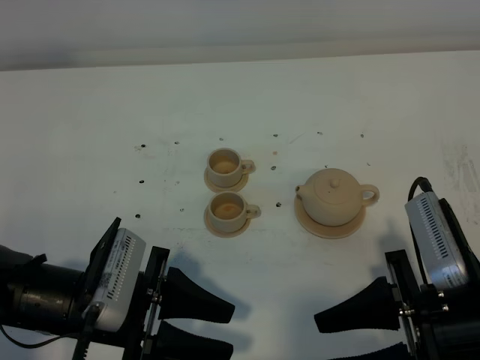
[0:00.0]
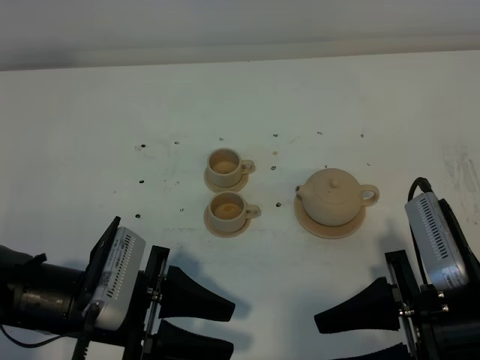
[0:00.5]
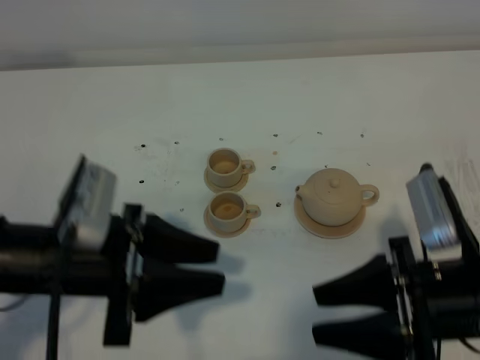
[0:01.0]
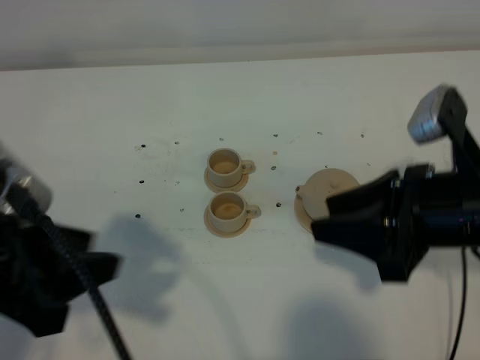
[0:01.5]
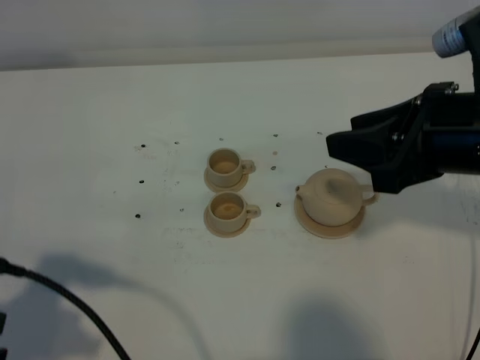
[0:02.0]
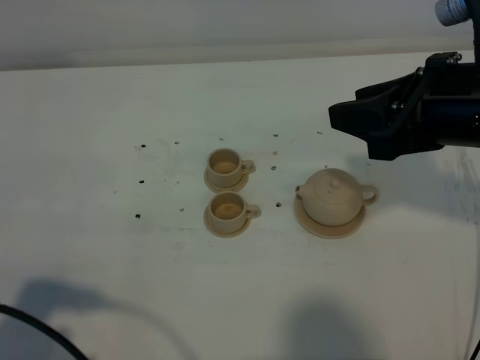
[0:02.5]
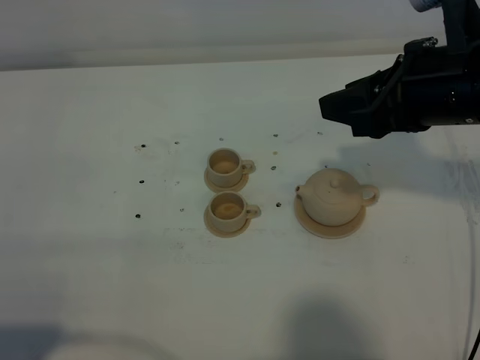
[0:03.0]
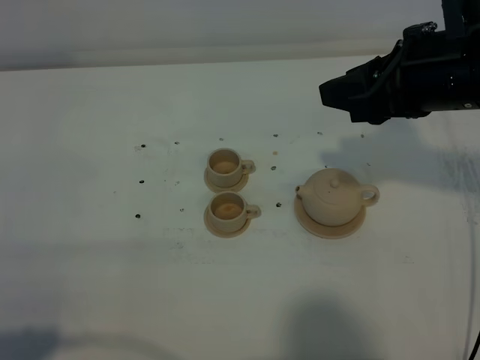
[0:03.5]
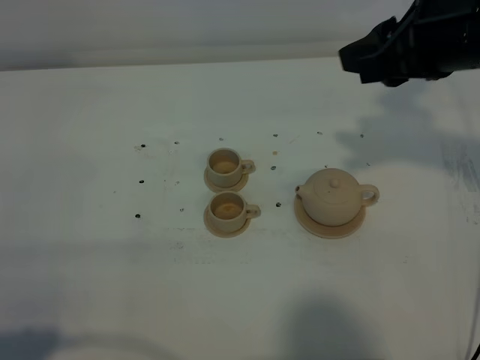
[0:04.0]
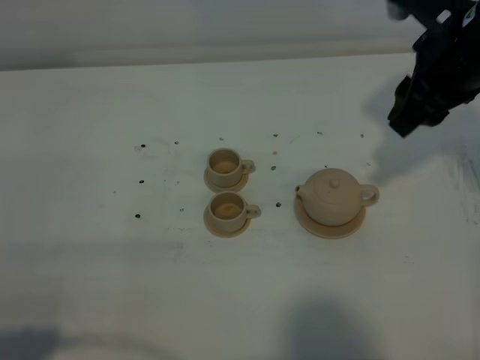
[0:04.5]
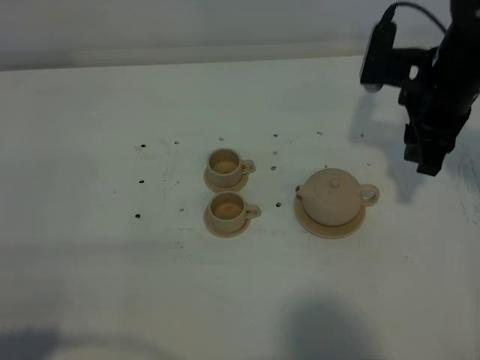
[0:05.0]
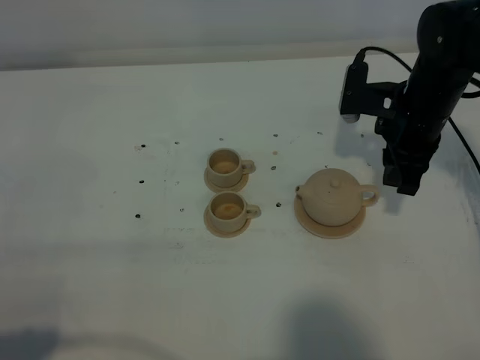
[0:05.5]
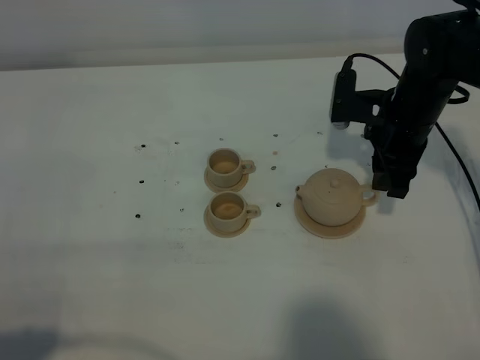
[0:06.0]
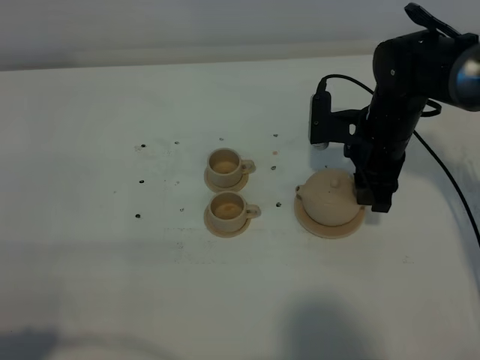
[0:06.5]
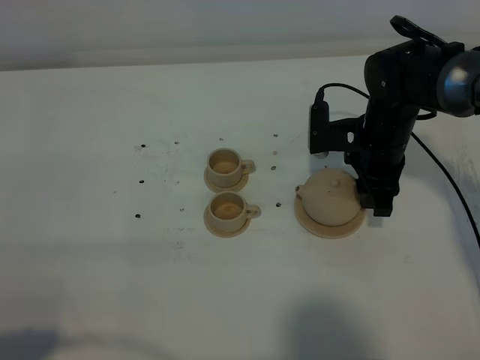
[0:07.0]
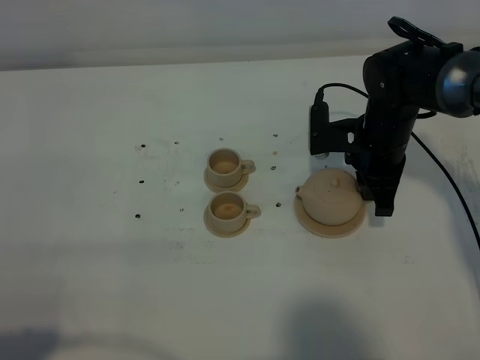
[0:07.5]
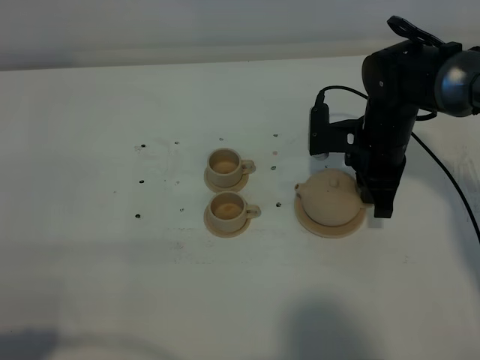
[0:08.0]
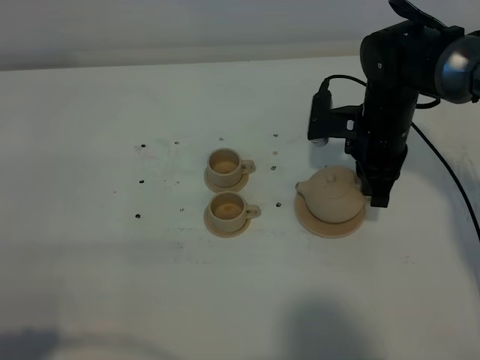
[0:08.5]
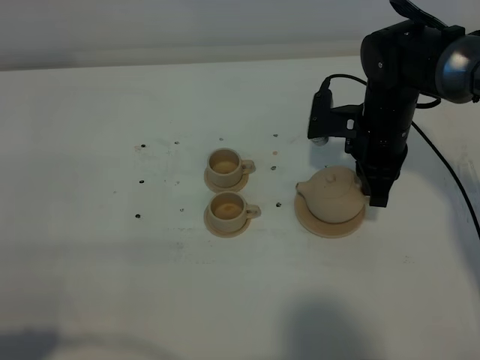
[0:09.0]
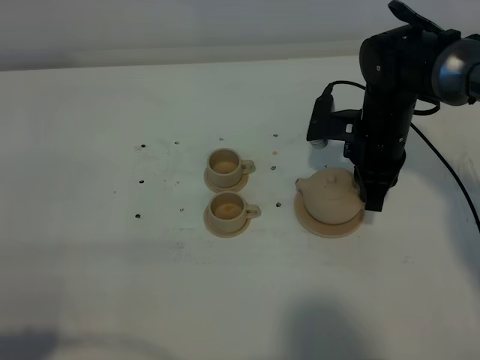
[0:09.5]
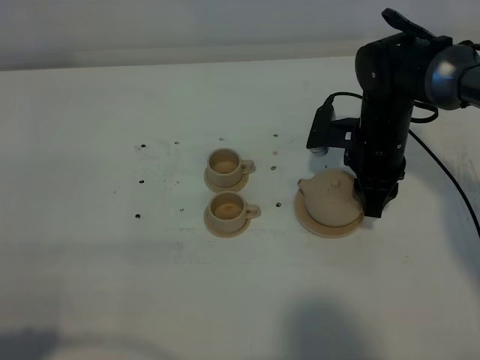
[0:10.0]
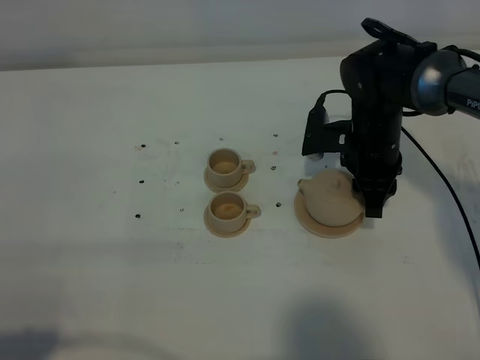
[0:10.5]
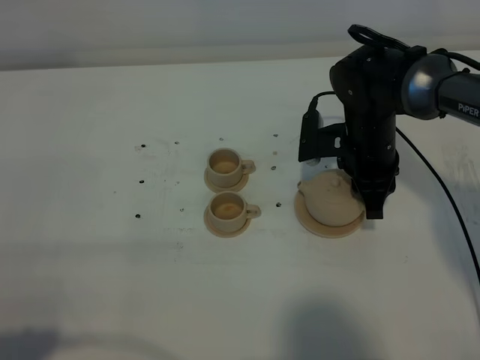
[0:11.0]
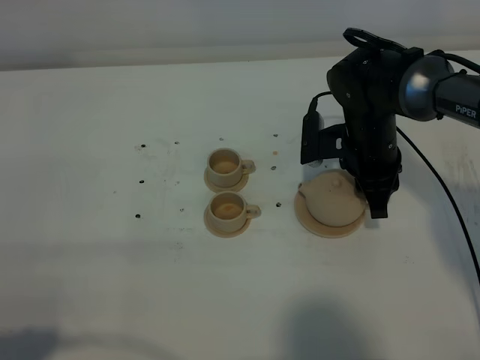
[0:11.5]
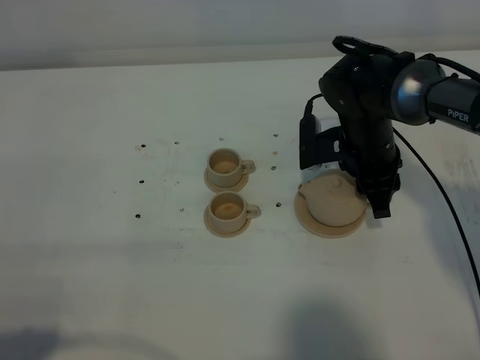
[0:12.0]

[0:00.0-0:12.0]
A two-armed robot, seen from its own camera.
Task of the whole recording: grasp the brown teapot and pour the tea into the two brown teacups one by one, put the brown teapot back in its original place.
0.0 to 2.0 s: The right gripper travels upward and forward by some 15 cm. Meanwhile the left gripper heads to the left, upward and backward, covering approximately 15 cm.
2.0 to 4.0 s: The right gripper moves forward, approximately 5 cm. The left gripper moves backward, about 10 cm.
4.0 to 6.0 s: The right gripper goes approximately 20 cm downward and forward.
6.0 to 8.0 s: The right gripper closes its fingers.
8.0 to 10.0 s: The right gripper opens up.

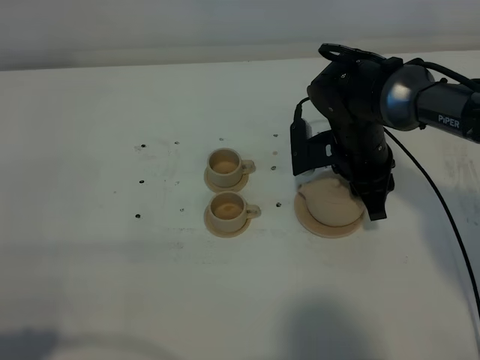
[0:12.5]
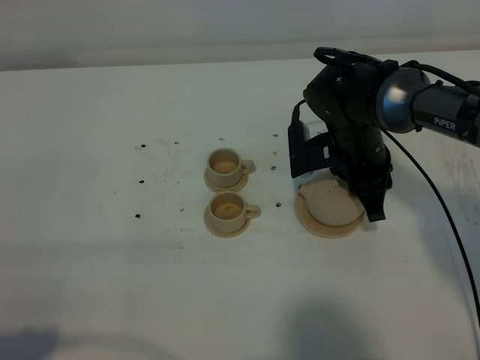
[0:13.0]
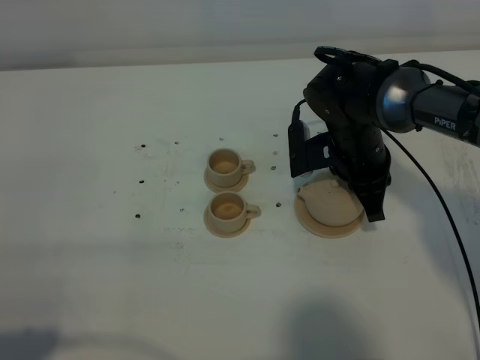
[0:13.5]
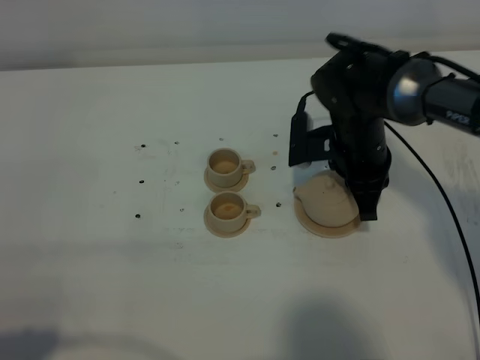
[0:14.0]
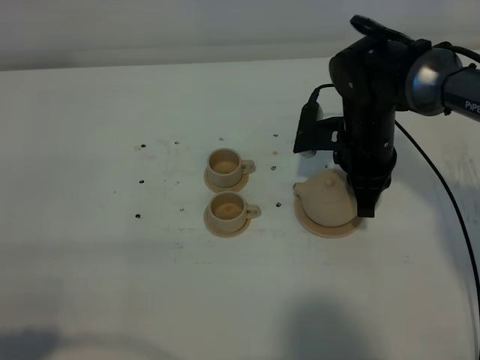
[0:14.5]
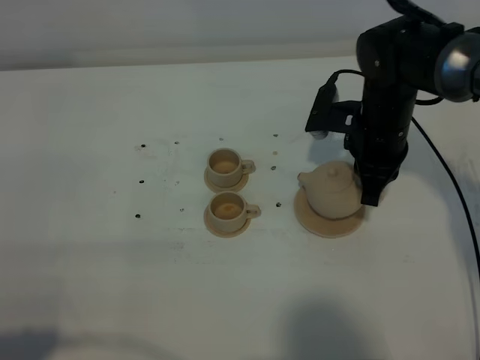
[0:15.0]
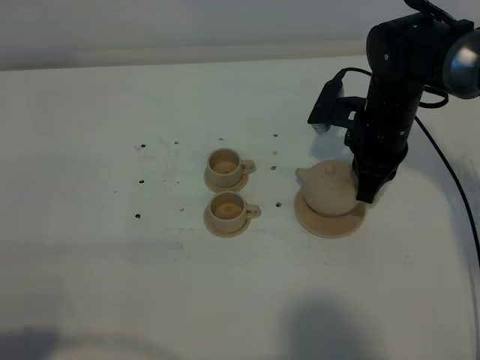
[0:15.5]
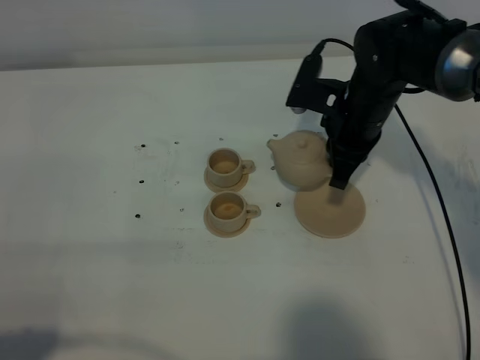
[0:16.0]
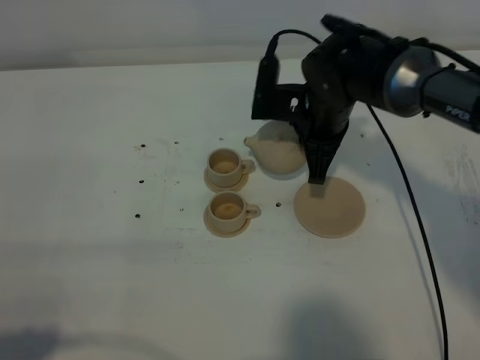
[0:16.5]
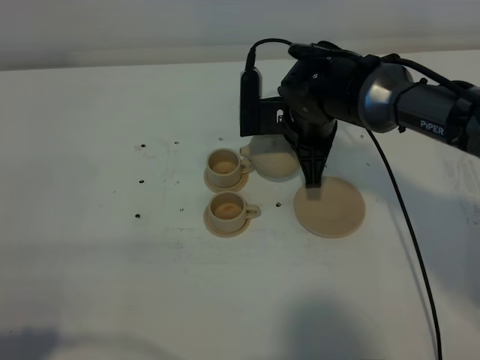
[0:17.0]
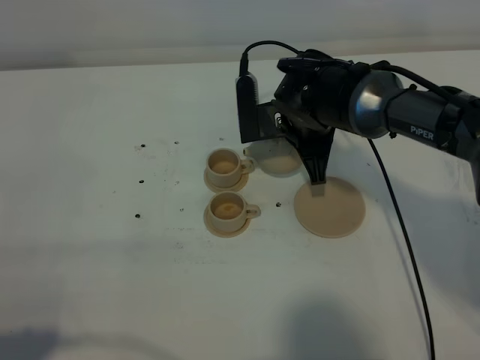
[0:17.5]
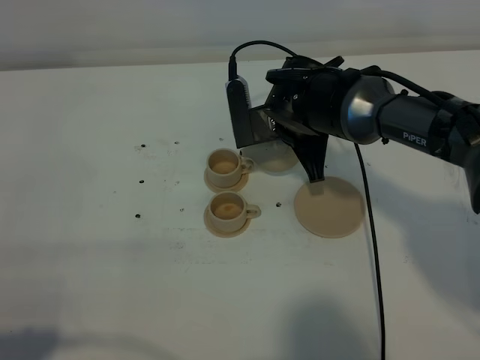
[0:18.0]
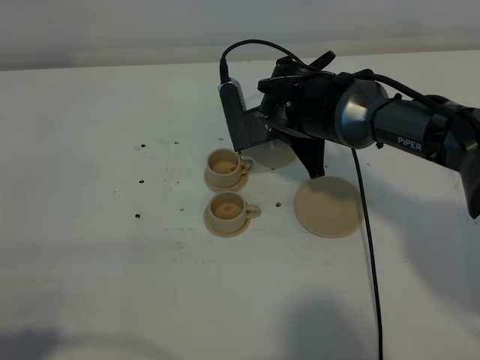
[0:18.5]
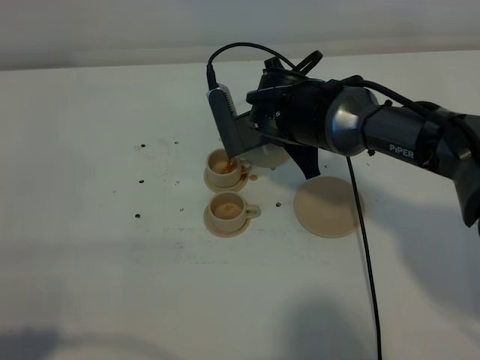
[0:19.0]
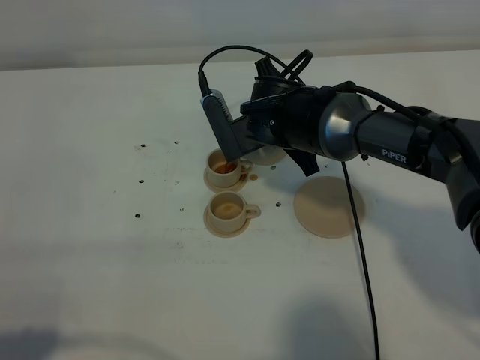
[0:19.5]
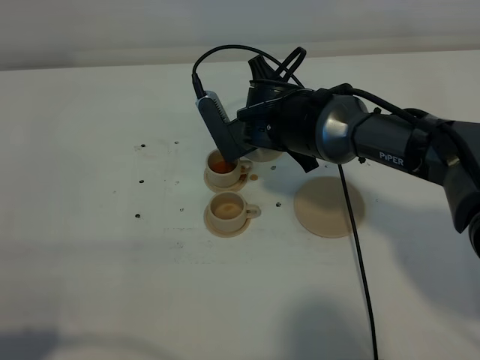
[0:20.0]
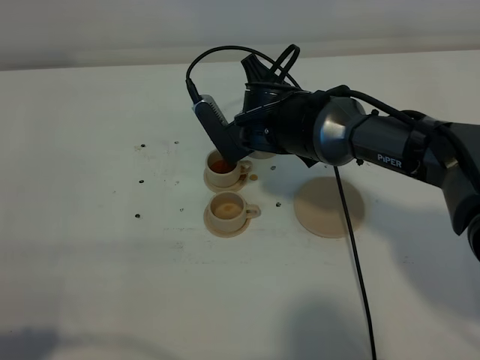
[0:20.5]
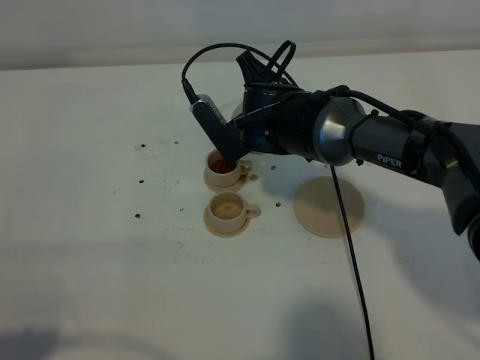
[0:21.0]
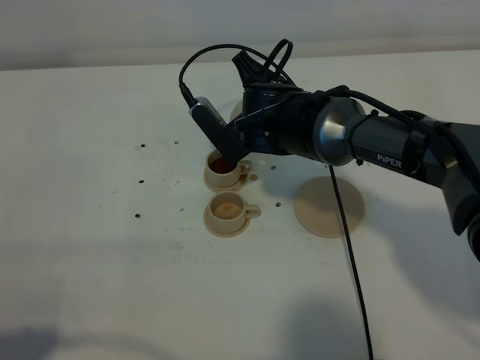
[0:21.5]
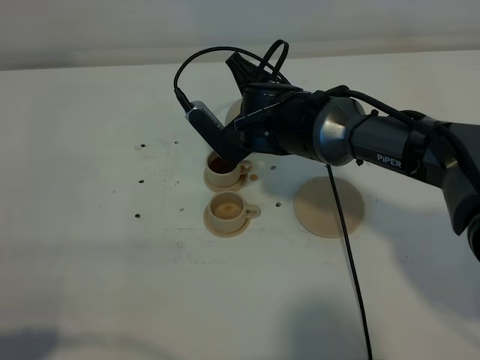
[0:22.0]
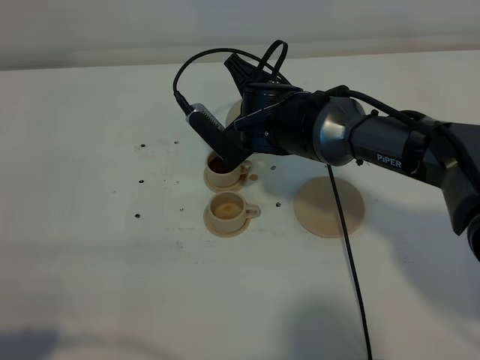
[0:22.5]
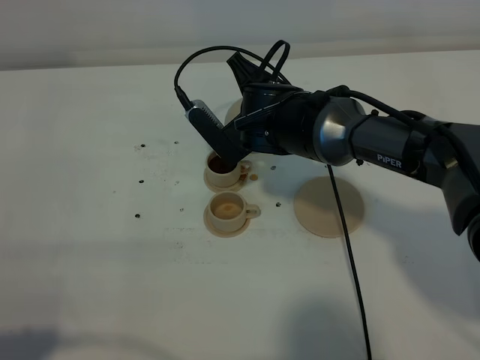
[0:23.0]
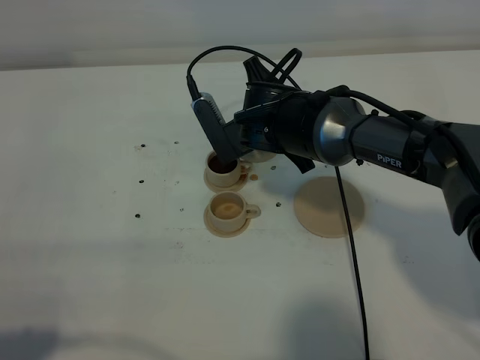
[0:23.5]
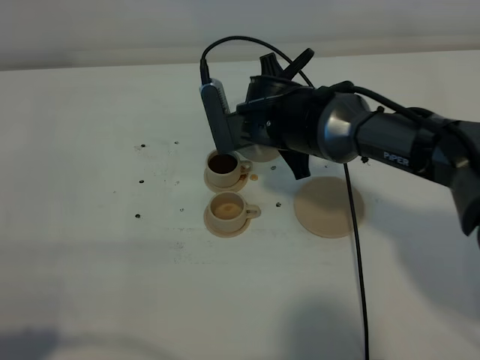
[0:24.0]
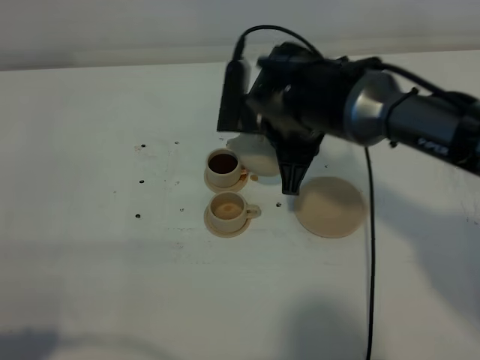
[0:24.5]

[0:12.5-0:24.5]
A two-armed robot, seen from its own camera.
Task of the whole recording: grasp the brown teapot and pour the tea into the two brown teacups one by one, put the brown teapot back in its original place.
Step, 12.5 to 15.5 s: Pick up the teapot with the right gripper.
12.5 to 14.5 s: The right gripper closes up.
14.5 to 16.5 s: The right gripper ends up roughly 5 cm from where it was.
18.5 to 20.5 s: The grippers stay close to where they were, moving slightly.
20.5 to 22.5 s: There are only small adjustments of the grippers.
22.5 to 24.5 s: The right gripper ends up some 5 cm from where it was.

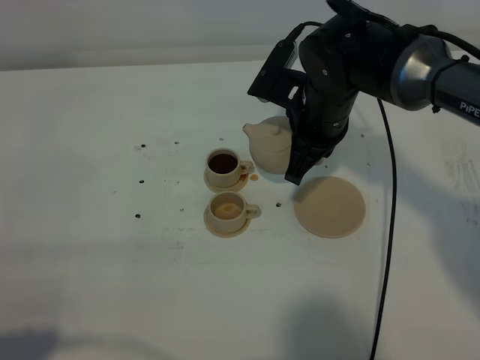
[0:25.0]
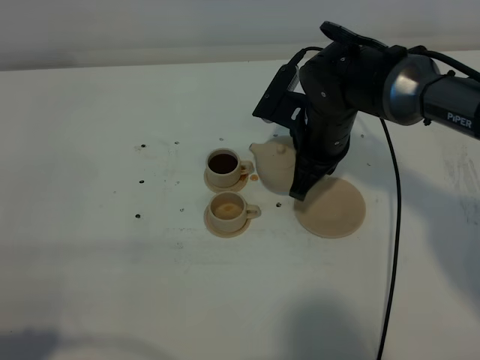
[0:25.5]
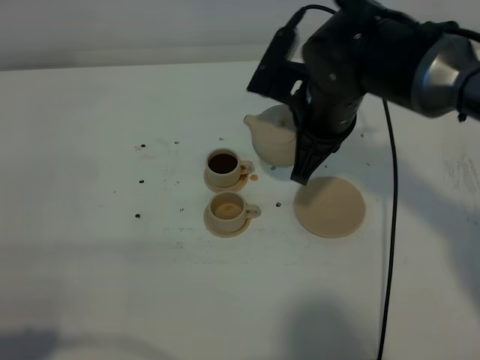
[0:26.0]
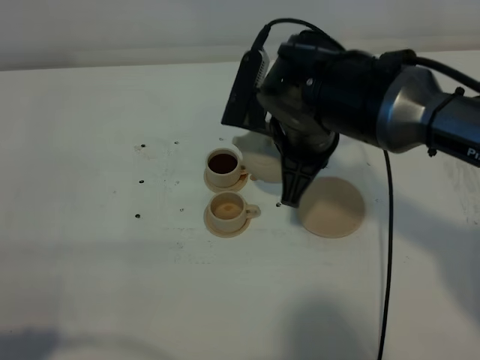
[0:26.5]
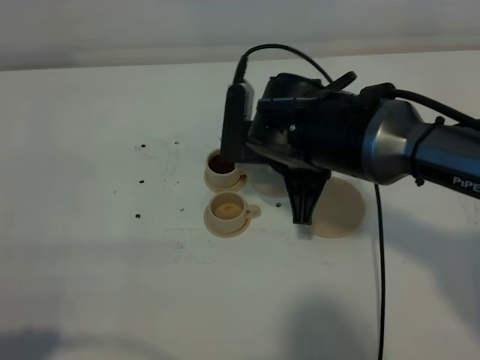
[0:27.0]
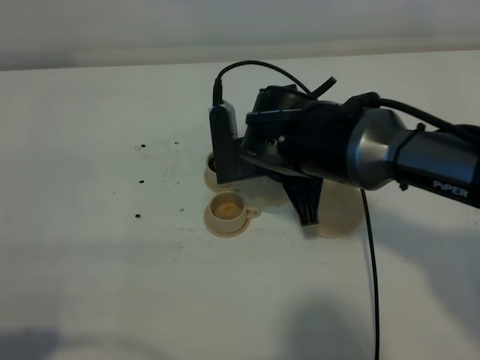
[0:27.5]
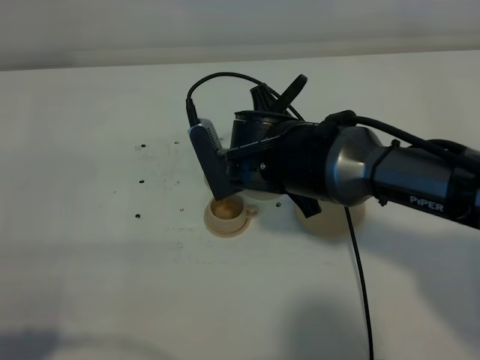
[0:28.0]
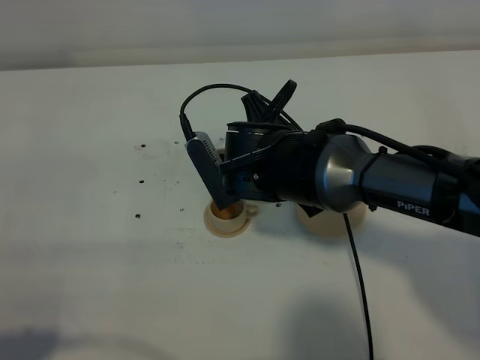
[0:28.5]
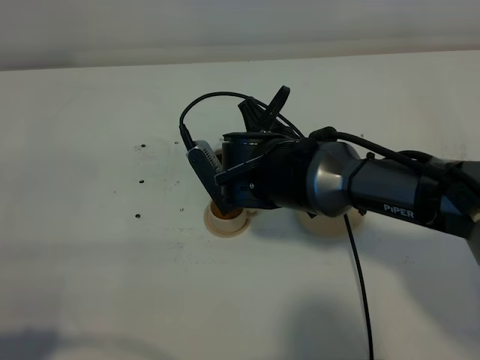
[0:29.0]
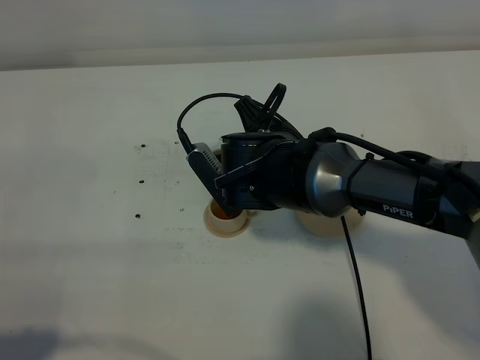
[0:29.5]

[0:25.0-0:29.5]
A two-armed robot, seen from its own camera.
Task of the whole recording: grasp the brown teapot and pour the tea into the two brown teacups one by one, put the brown teapot back in its original place.
25.0 to 27.0 s: The right gripper goes approximately 5 cm backward.
